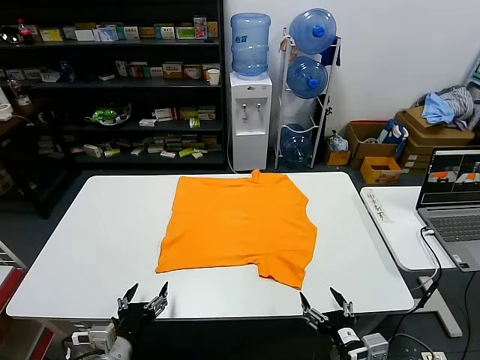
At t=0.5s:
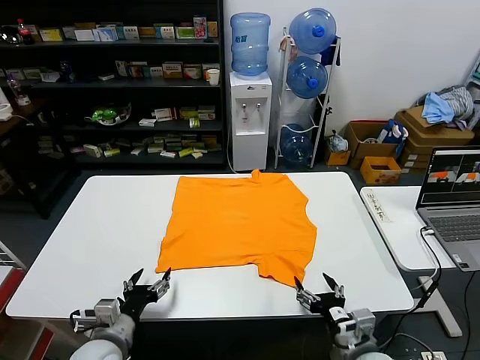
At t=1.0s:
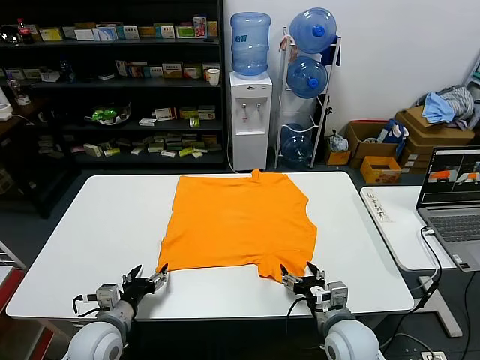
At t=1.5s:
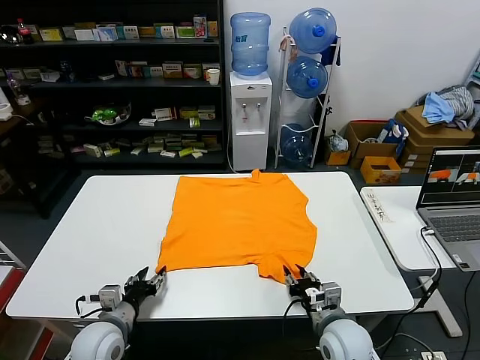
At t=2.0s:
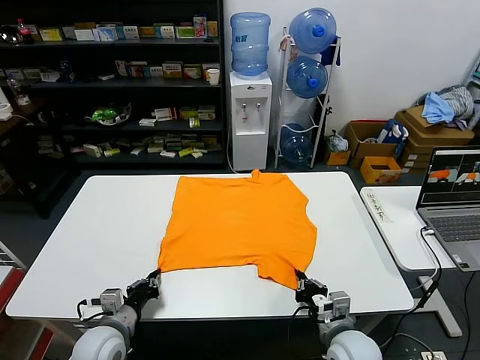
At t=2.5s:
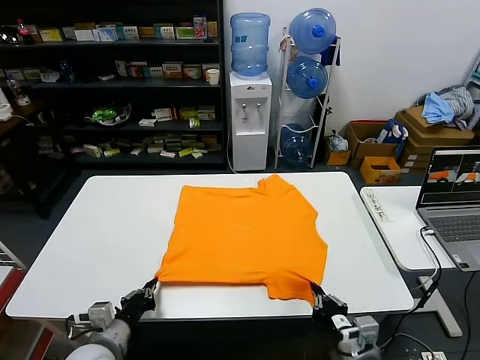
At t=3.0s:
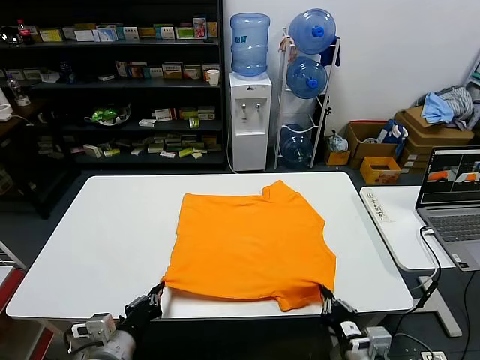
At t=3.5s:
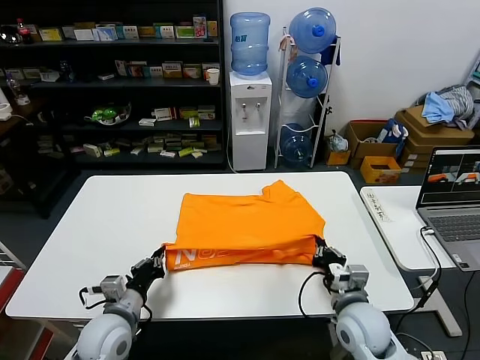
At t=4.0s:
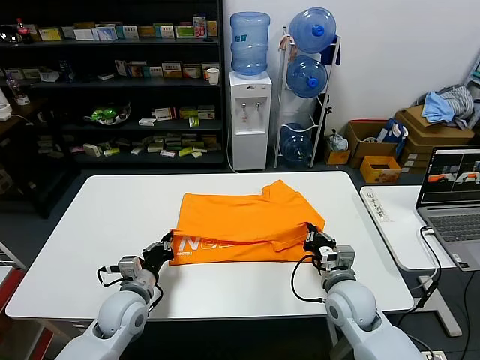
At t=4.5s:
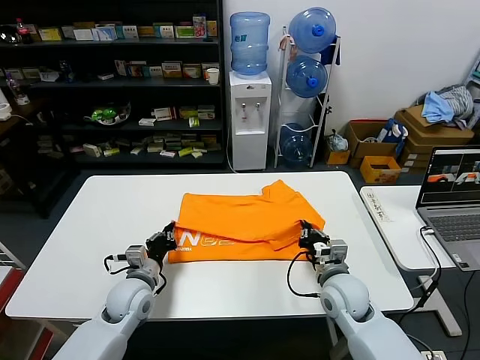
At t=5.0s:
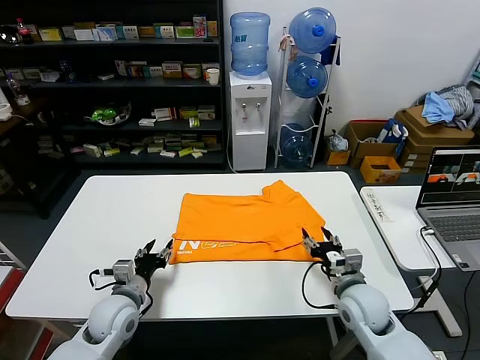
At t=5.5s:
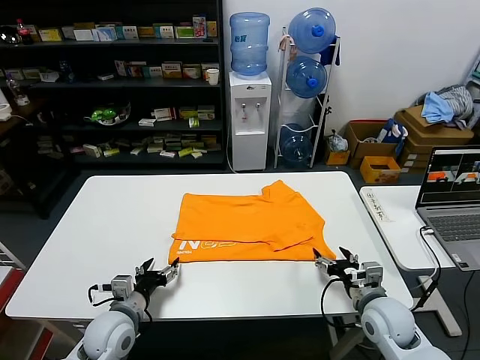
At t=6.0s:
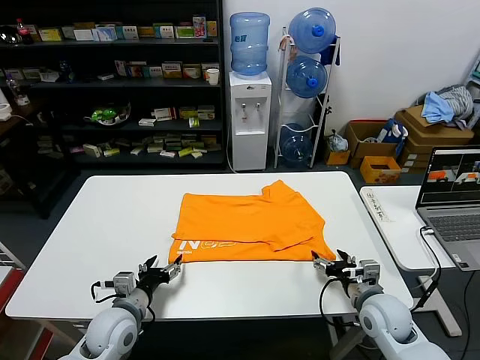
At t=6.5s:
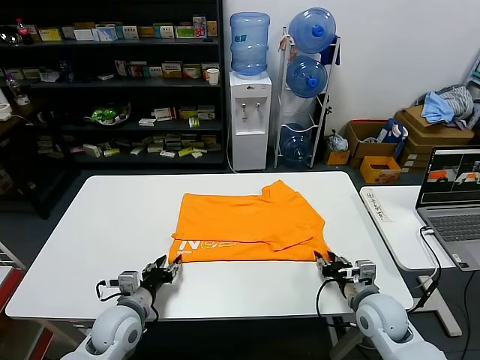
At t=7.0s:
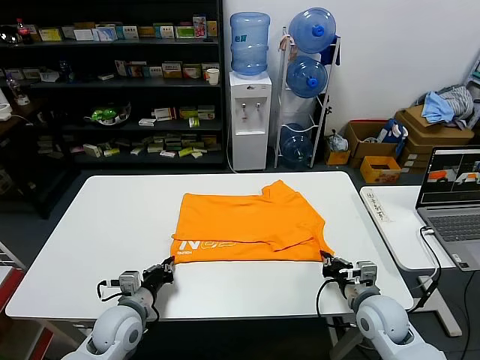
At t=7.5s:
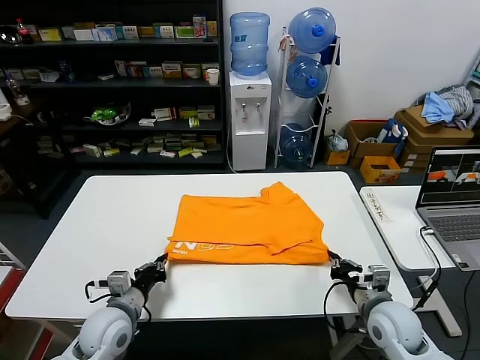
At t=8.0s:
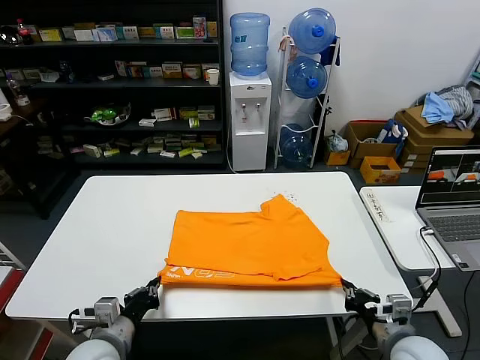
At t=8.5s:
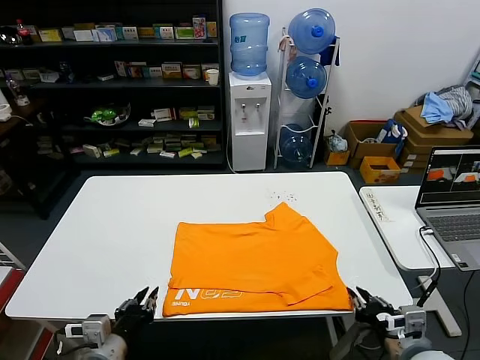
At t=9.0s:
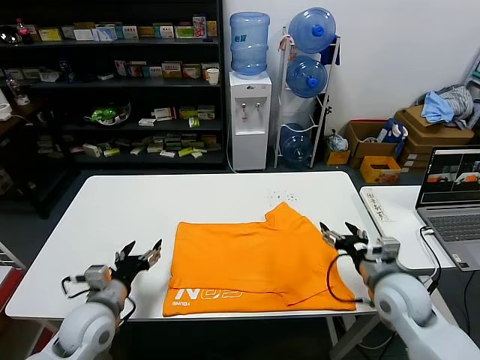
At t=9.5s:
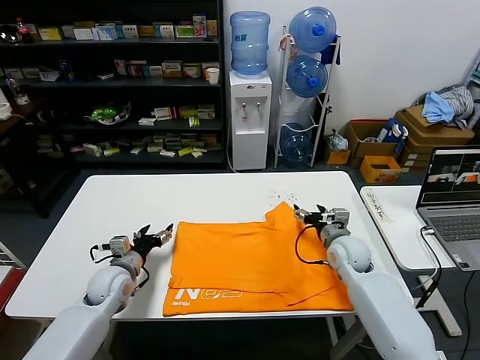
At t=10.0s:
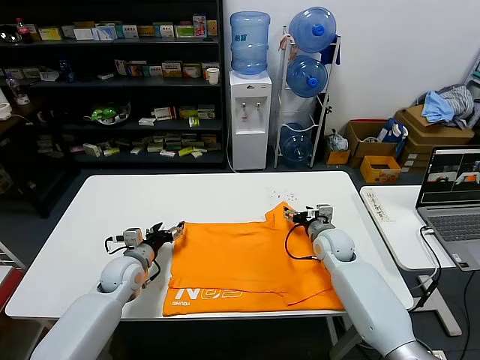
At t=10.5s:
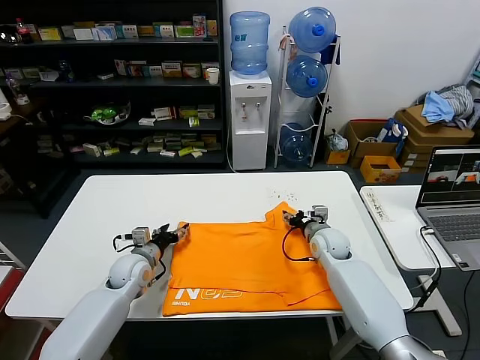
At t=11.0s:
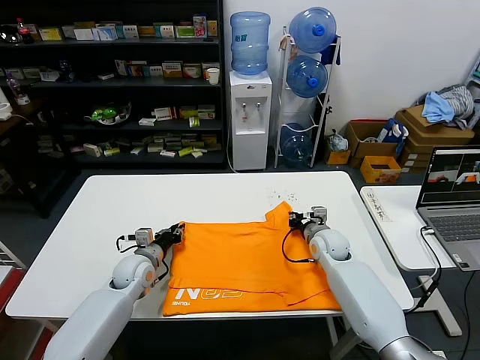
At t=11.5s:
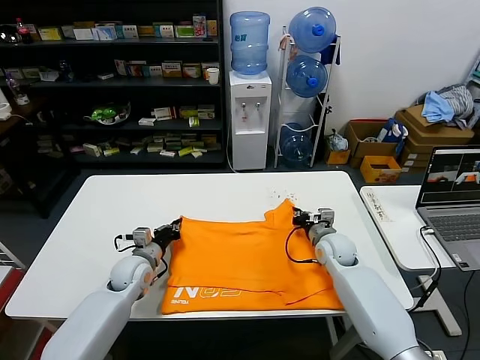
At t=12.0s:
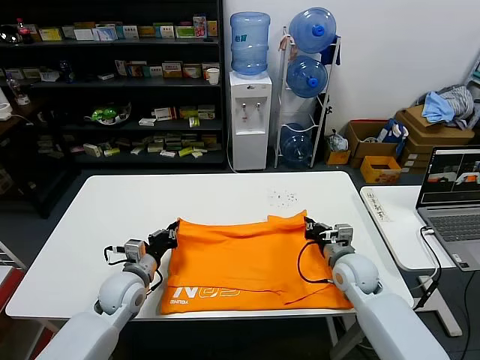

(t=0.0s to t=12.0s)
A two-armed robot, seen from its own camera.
Task of the whole recording: fold and organize the clothes.
Step, t=0.0s - t=1.5s: use both grippers simultaneously to clamp the lower edge of the clothing fabric.
Step, t=2.0s - t=4.5s: use both grippers to drag the lower edge of the fabric forward and fold it over the upper edge.
Step, t=5.0s - t=8.0s: Drag the clothes downward with both gripper.
Step, t=8.5s - t=11.0s: use both grippers simultaneously to clamp the upper edge of the clothing fabric.
t=2.0s - t=4.0s: The two grippers go roughly 10 cm forward.
t=4.0s - t=6.0s: The right gripper goes about 10 cm to the right, and opens its fingers. The left gripper opens.
t=6.0s - t=8.0s: The left gripper shifts approximately 5 cm backward, and closes up. The right gripper shifts about 10 cm backward, and closes its fingers.
t=8.0s - t=10.0s: Both grippers travel together forward, roughly 25 cm. The left gripper opens its fingers. Meanwhile the right gripper opens.
t=10.0s - t=12.0s: The left gripper changes place by approximately 5 cm, and closes. Meanwhile the right gripper is displaced backward by some 10 cm, and closes its fingers.

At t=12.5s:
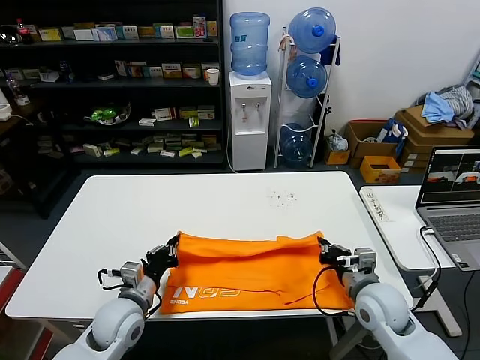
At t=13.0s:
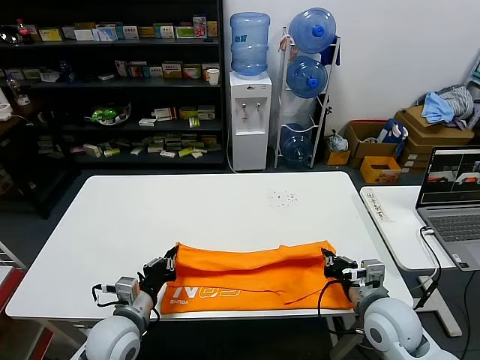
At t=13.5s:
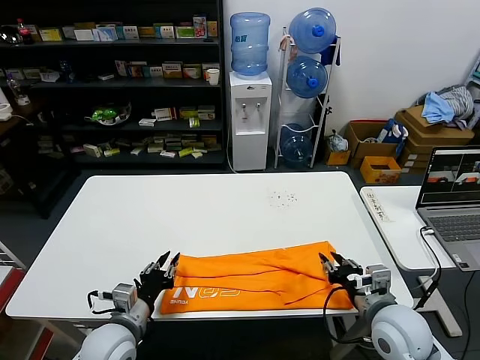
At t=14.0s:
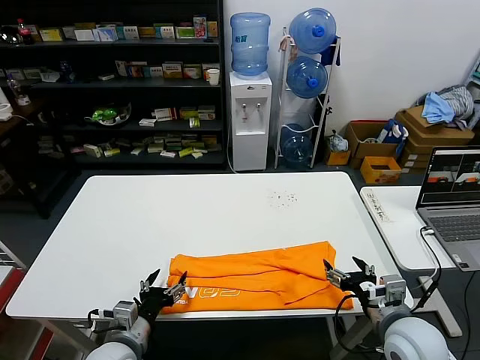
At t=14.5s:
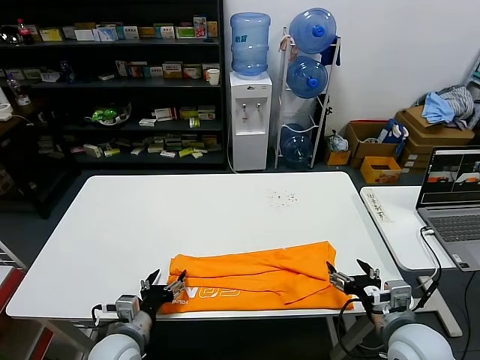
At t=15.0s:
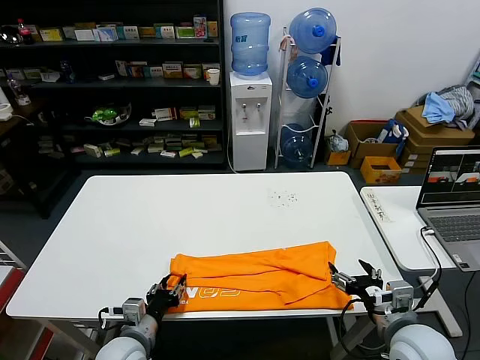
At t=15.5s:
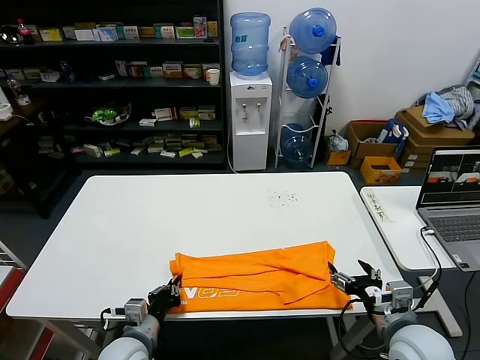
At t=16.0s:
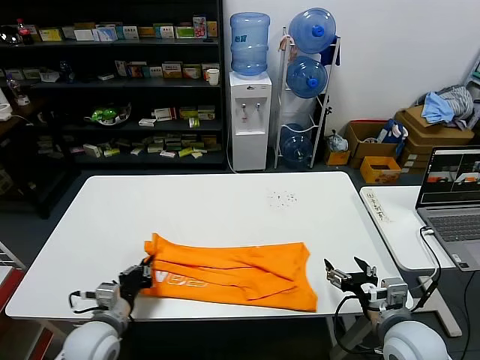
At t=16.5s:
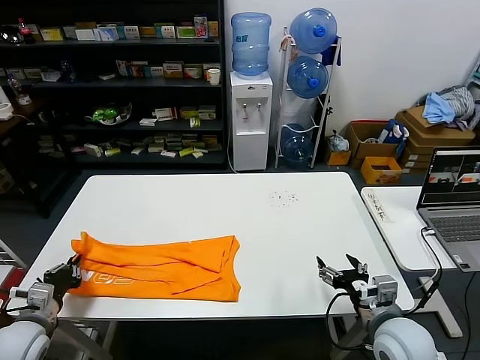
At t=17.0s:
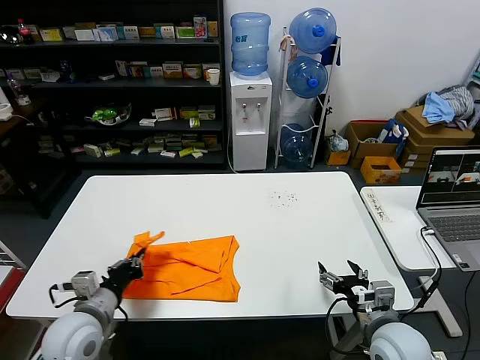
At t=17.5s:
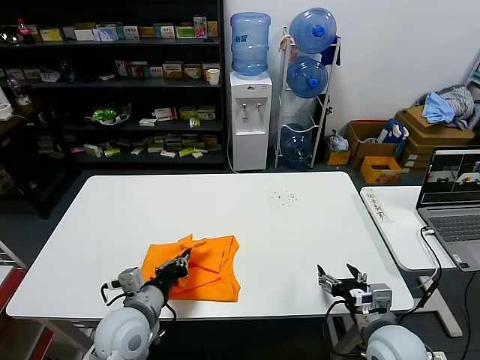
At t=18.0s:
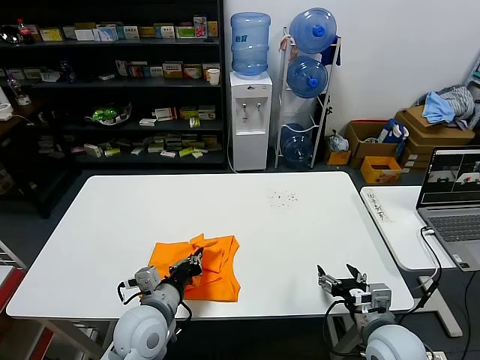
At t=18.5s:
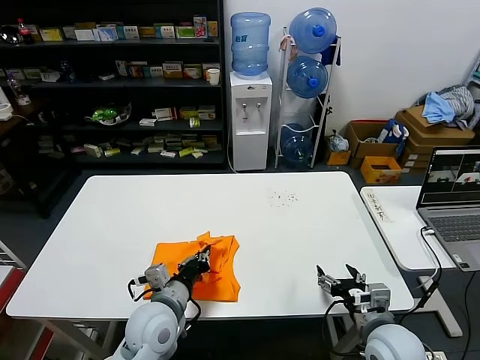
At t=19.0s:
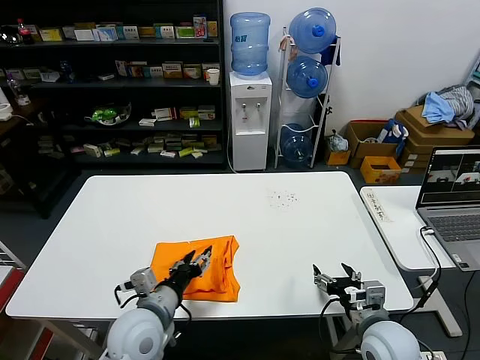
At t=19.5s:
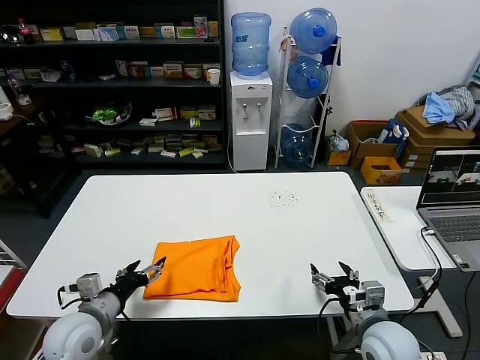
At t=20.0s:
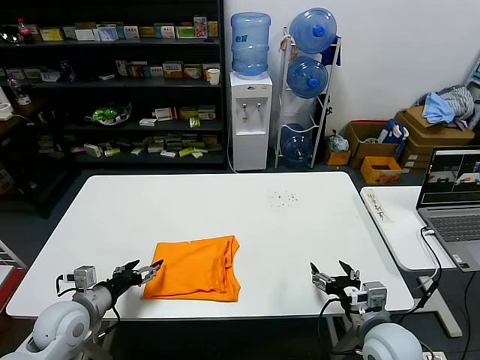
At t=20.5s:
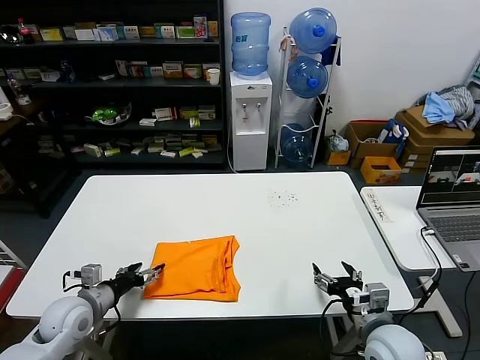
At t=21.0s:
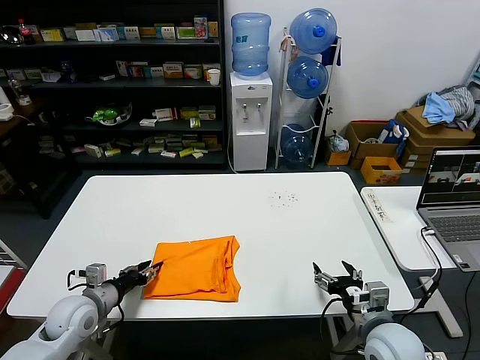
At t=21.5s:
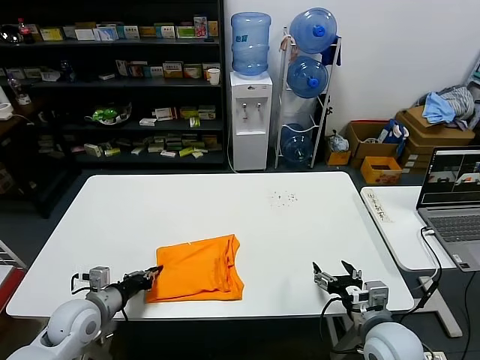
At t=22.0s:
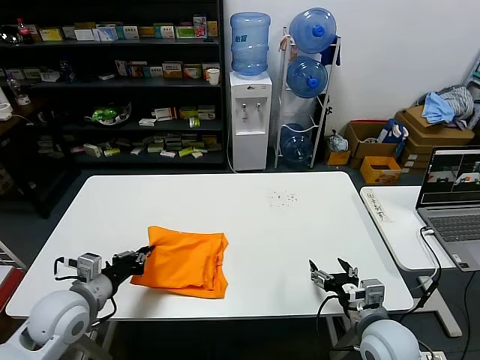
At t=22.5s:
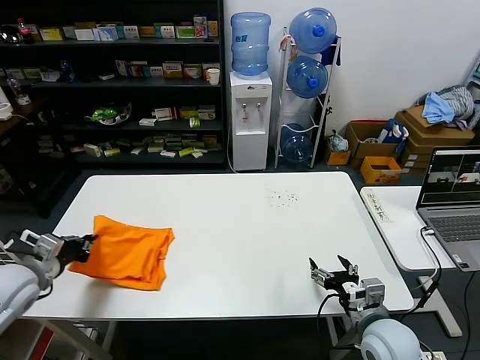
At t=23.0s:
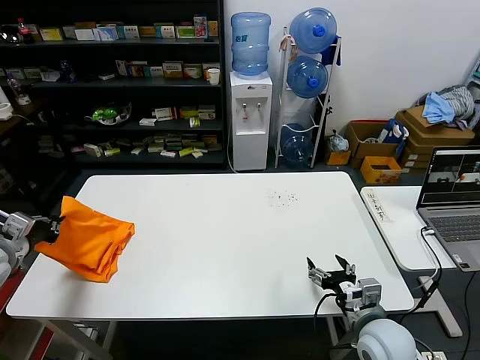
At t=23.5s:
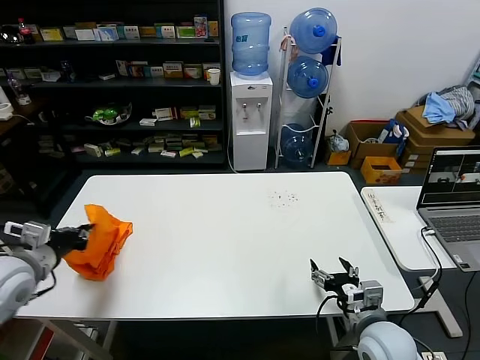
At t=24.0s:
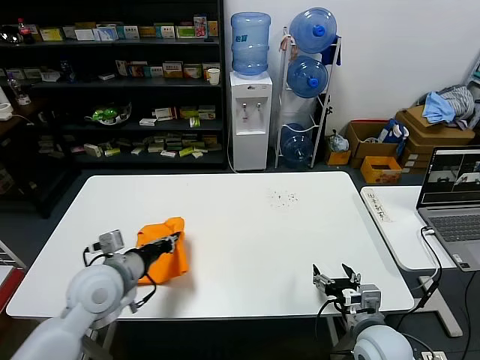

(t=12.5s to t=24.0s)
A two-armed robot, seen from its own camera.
Task of the whole recording: fold and organize the clothes.
Step, t=14.0s - t=15.5s: use the left gripper to clamp the left edge of the fabric.
Step, t=16.0s - t=18.5s: use the left gripper to drag the left edge of the fabric to the left and folds it over the right edge.
t=12.5s - t=14.5s: Both grippers move backward, roughly 10 cm. The right gripper opens its fingers. The left gripper opens up.
t=14.5s - t=16.5s: The left gripper heads to the left, covering approximately 20 cm, and closes its fingers.
t=16.5s - t=18.5s: The left gripper heads to the right, covering approximately 25 cm.
t=18.5s - t=20.0s: The left gripper heads to the left, covering about 20 cm, and opens up.
t=20.0s - t=22.0s: The left gripper changes place by about 5 cm, and closes up.
t=22.0s - t=24.0s: The left gripper goes approximately 5 cm upward, and travels to the left and back again, about 15 cm each way.

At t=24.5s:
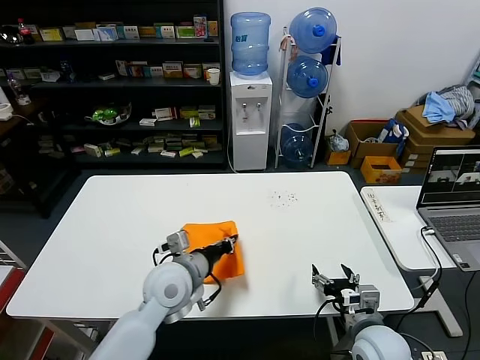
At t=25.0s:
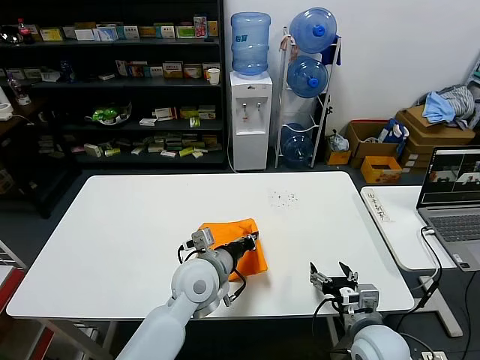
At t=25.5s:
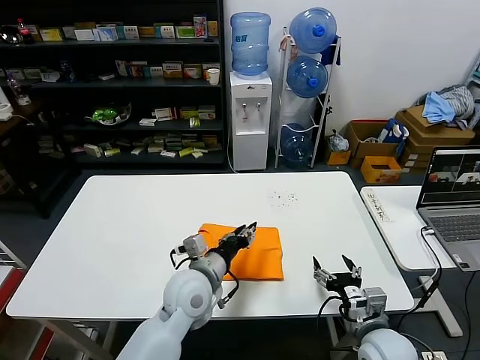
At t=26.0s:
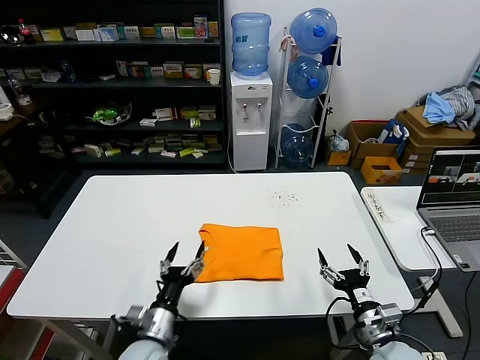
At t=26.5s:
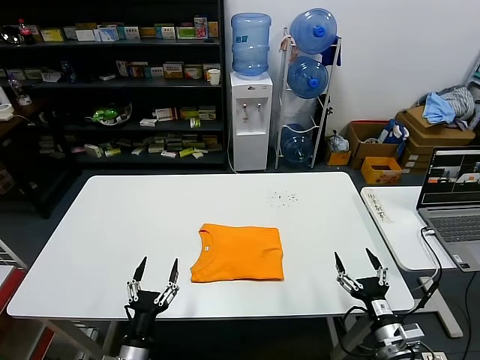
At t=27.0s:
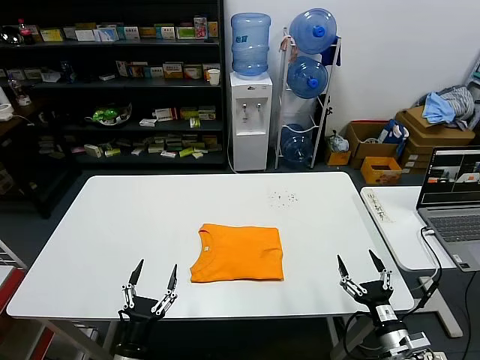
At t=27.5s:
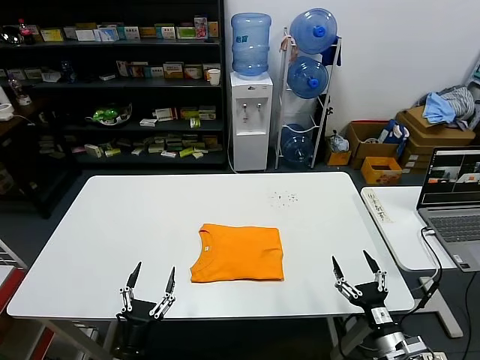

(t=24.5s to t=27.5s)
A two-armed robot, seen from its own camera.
Task of the whole recording: fold and organize the clothes.
t=24.5s - t=26.0s: The left gripper is displaced downward and backward by approximately 15 cm, and opens up.
t=26.0s - t=27.5s: The right gripper ends up some 5 cm from where it was. Meanwhile the left gripper shifts some 15 cm backward, to the left and downward.
